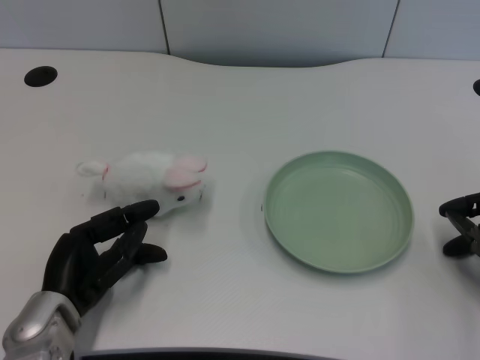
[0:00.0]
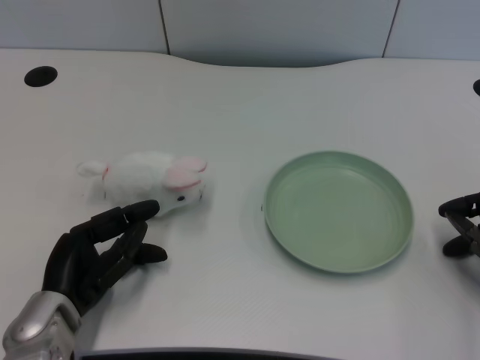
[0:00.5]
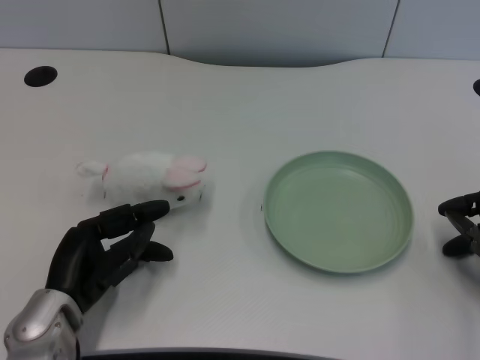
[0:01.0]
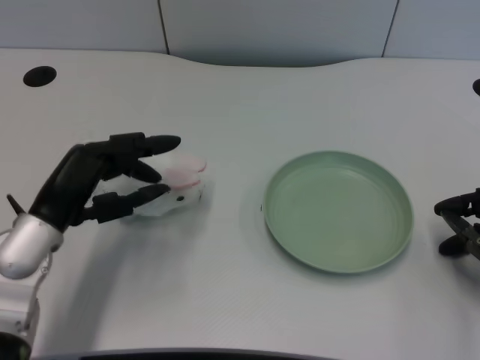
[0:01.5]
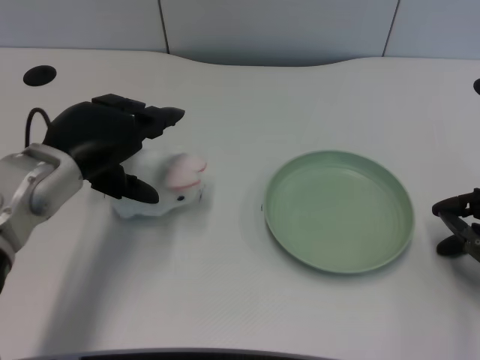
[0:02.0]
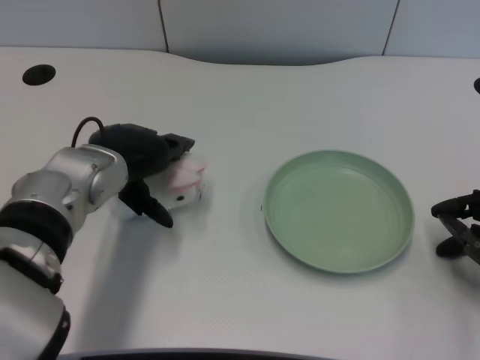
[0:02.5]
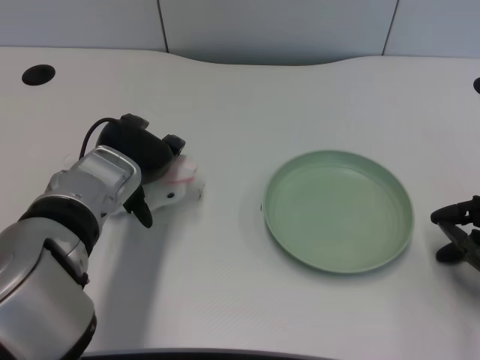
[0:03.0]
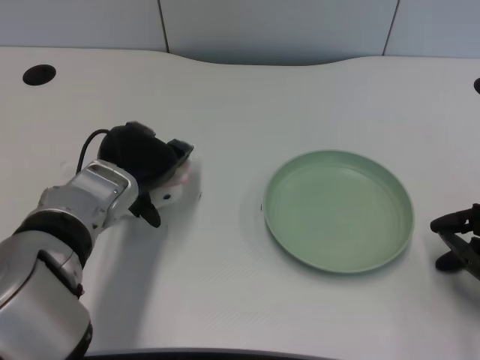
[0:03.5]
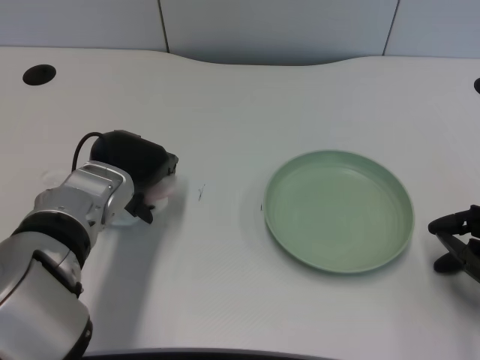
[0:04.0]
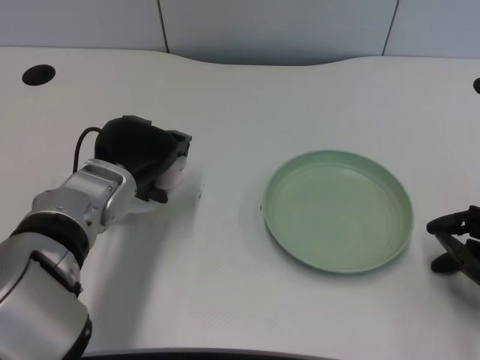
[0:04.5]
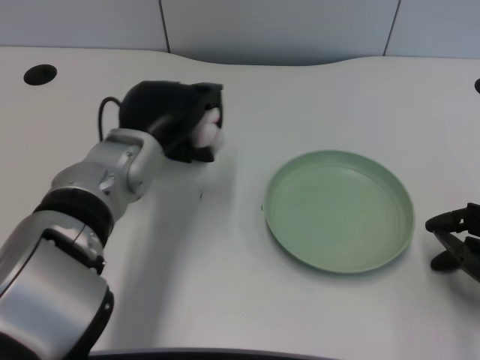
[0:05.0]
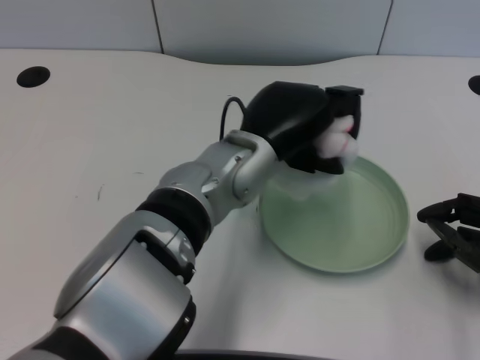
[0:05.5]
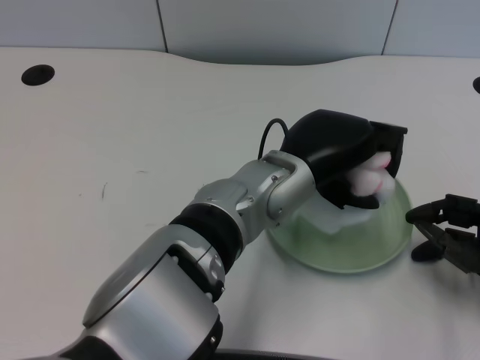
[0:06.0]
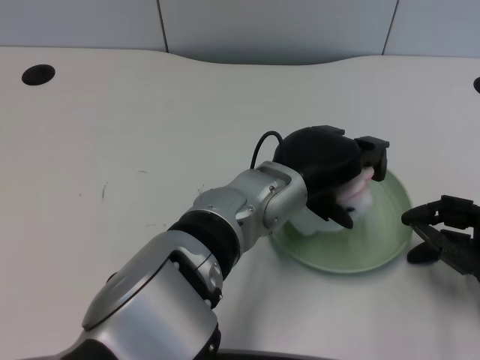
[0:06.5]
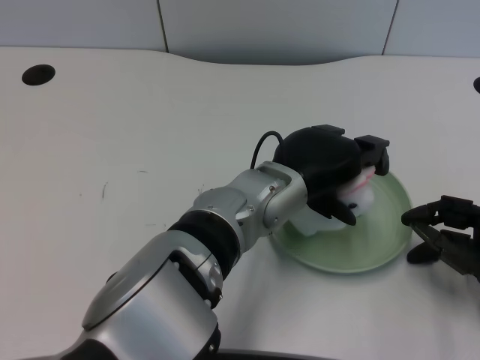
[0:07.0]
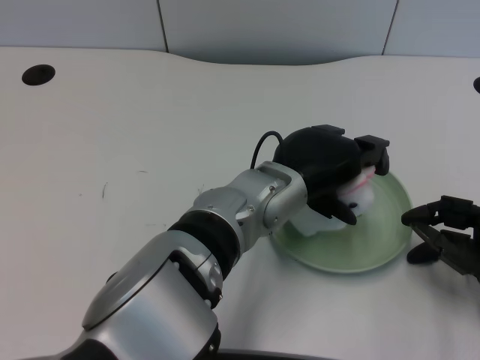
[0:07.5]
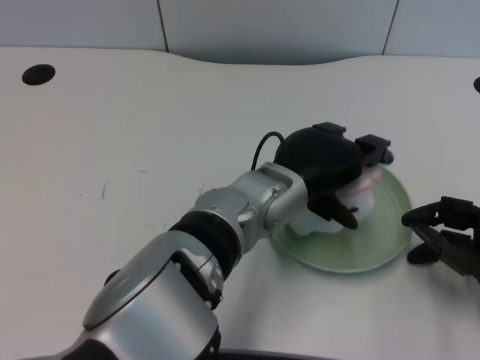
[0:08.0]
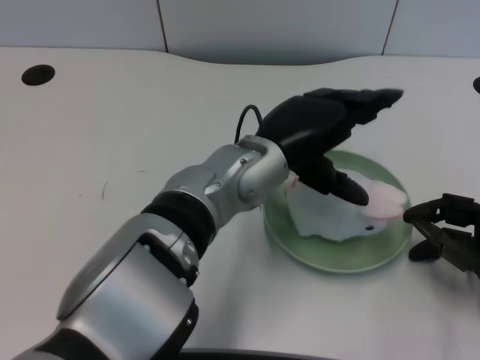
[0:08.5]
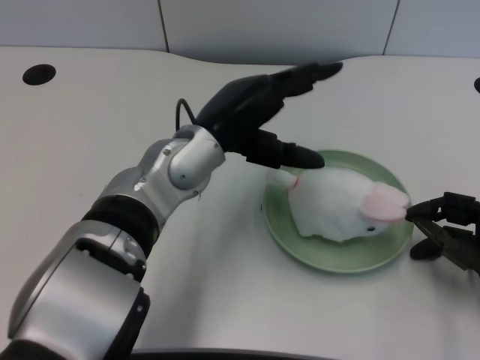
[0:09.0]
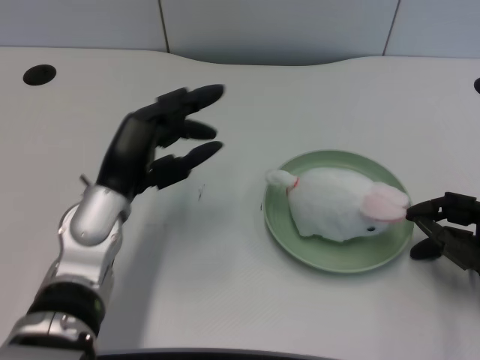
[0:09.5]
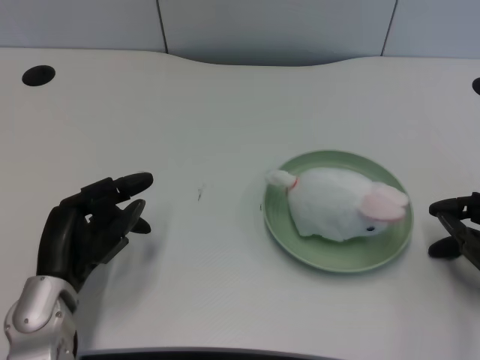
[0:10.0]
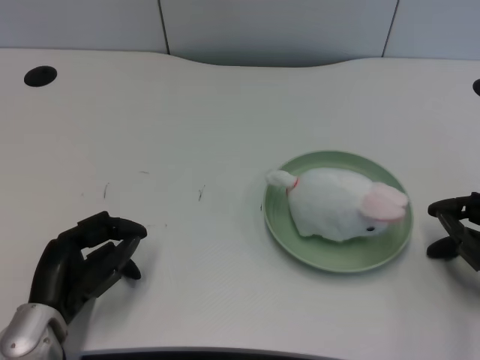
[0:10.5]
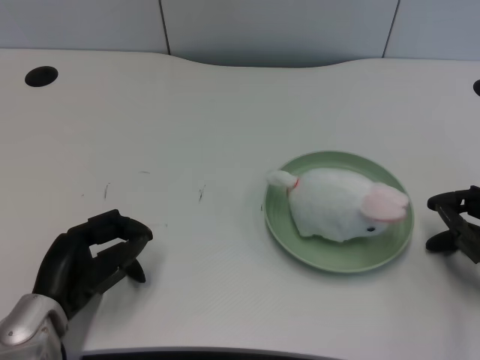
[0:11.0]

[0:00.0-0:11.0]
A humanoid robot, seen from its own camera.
Task of the whole recording: pick up the rabbit doll from the table and place it on the plate.
Step, 0:01.0 to 0:04.5: Grasp the rabbit doll with the left gripper.
Step, 0:05.0 to 0:08.0: Place the rabbit doll into the plate with the left gripper.
0:02.0 to 0:03.5: The left hand ends up approximately 5 cm from where it was.
0:03.5 to 0:05.5: The left hand goes about 15 cm to the right.
0:07.5 to 0:09.0: The left hand shifts roughly 10 cm to the left.
0:09.0 to 0:11.0: The left hand goes roughly 25 cm to the left, downward and backward.

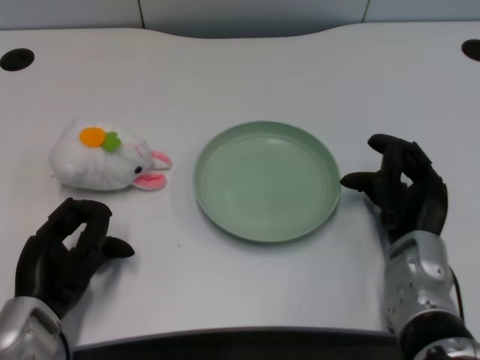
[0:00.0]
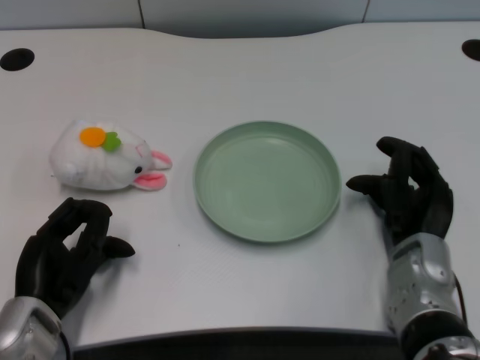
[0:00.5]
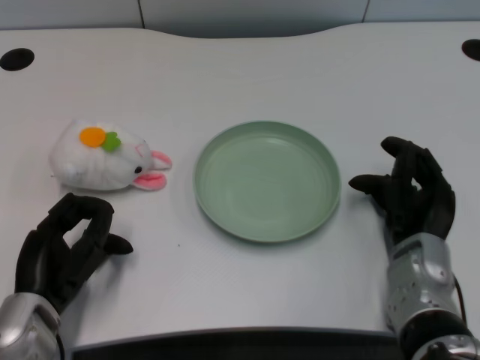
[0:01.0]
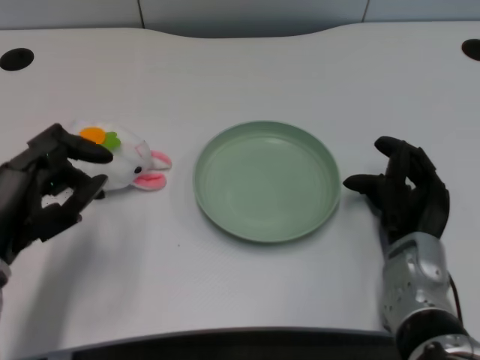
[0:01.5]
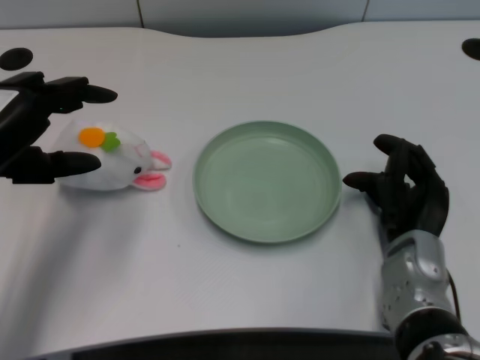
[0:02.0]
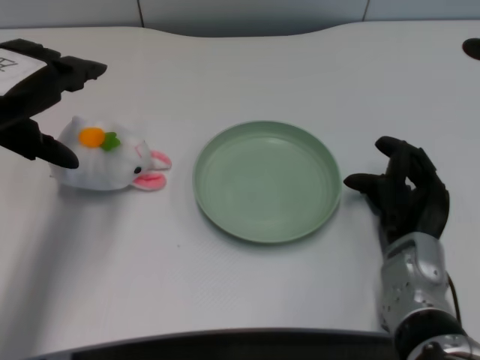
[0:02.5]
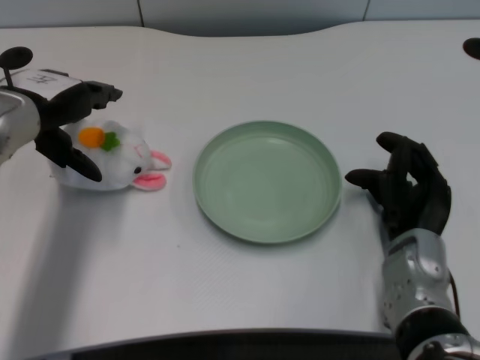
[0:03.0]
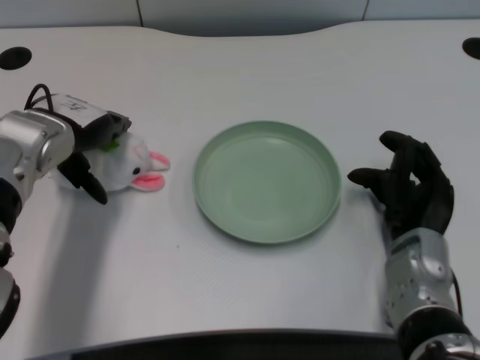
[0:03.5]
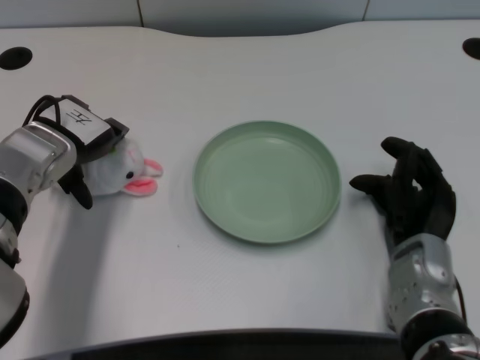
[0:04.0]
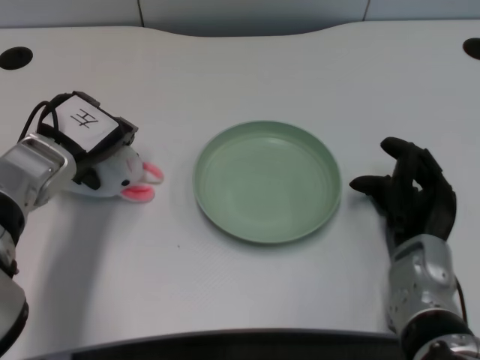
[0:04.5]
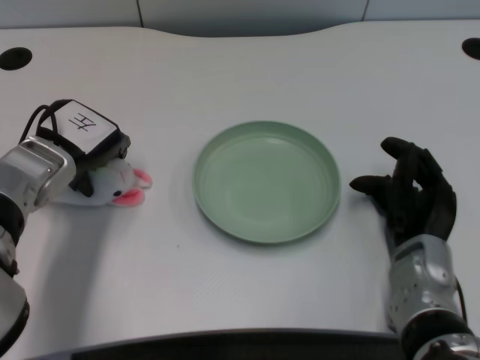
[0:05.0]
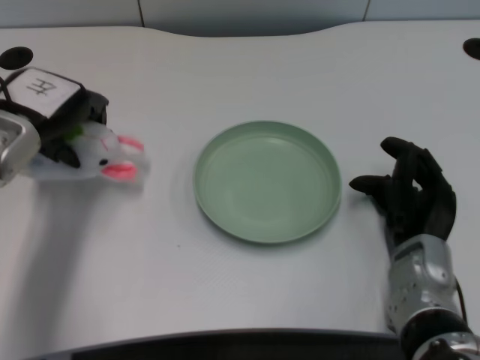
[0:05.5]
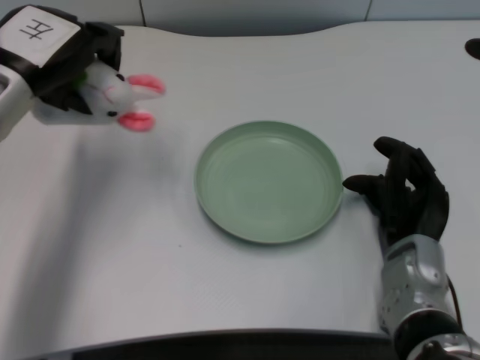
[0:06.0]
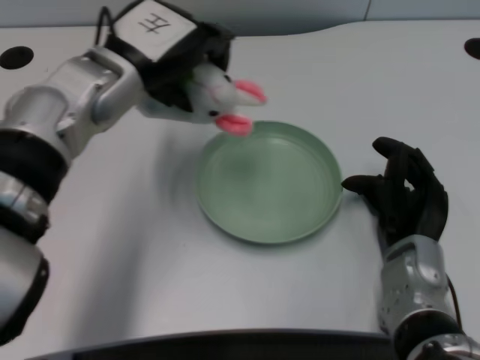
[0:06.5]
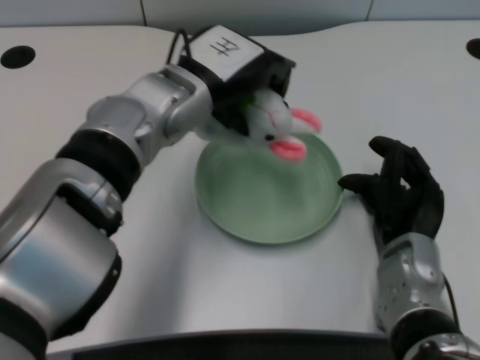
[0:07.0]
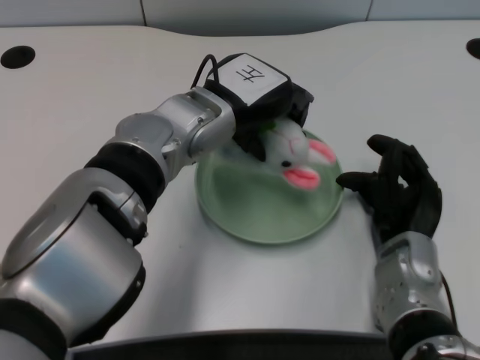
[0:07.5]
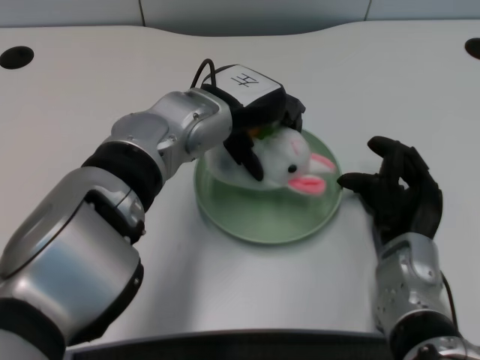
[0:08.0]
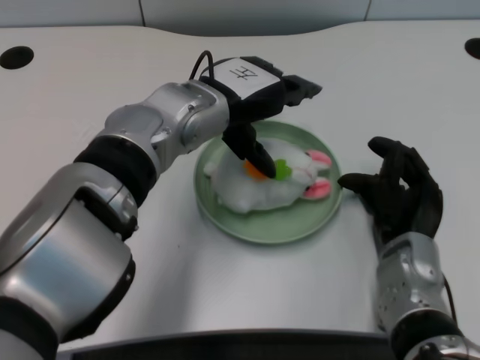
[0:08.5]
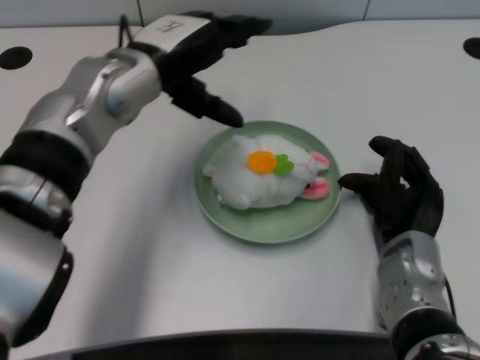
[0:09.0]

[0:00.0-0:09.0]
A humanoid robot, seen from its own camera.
Task of the whole recording: pick up the rabbit doll from the table and place it on the plate.
Step, 0:01.5 to 0:05.0: Grasp the rabbit doll with the left gripper.
Step, 0:05.5 to 0:08.0: Place the rabbit doll into the plate with the left gripper.
0:02.0 to 0:04.5: The left hand heads forward and downward, covering about 10 cm.
0:04.5 to 0:07.0: The left hand heads to the right and upward, covering some 15 cm.
0:07.0 to 0:09.0: The left hand moves some 5 cm.

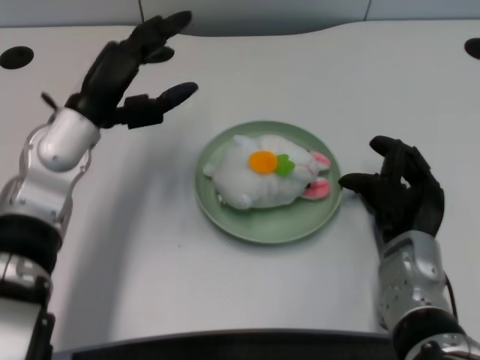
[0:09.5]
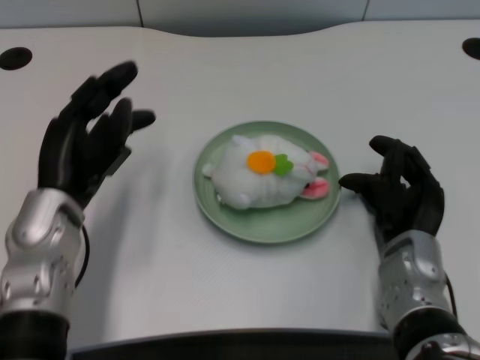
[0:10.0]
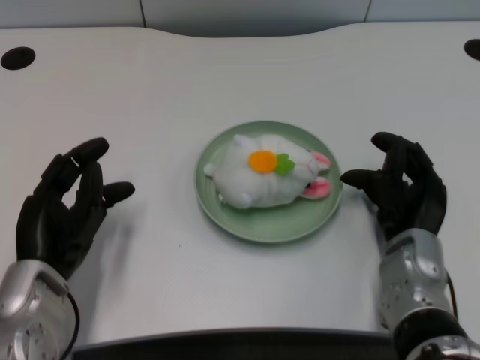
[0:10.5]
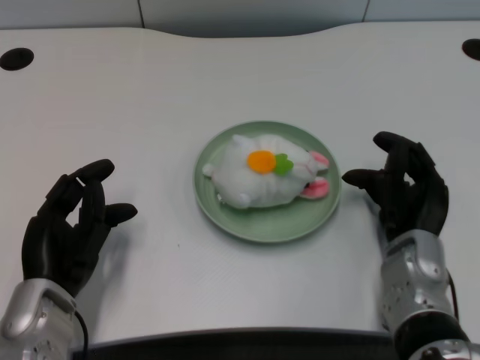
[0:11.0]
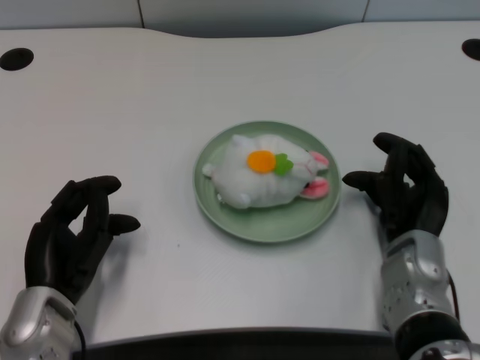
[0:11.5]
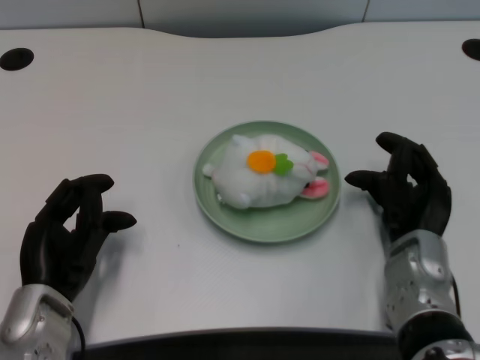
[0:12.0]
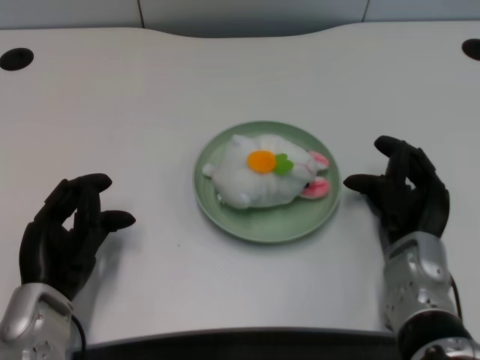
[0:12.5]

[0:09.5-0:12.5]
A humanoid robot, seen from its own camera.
Task of the whole recording: pick up the rabbit doll from the table and place it on the plate.
0:09.5 to 0:11.0: The left hand shifts some 15 cm backward and downward.
0:11.0 to 0:12.5: The hands make only small movements.

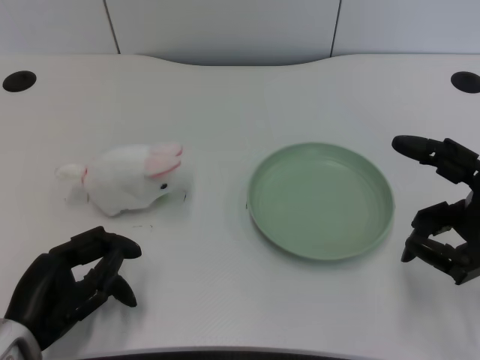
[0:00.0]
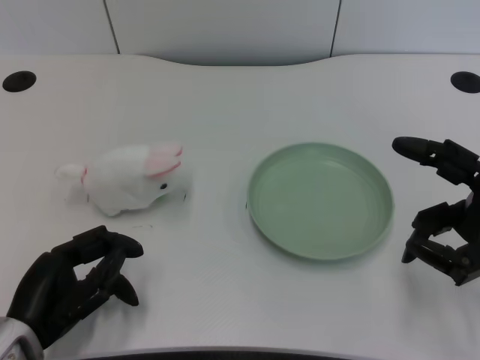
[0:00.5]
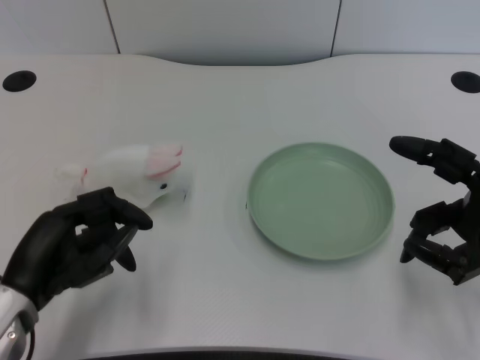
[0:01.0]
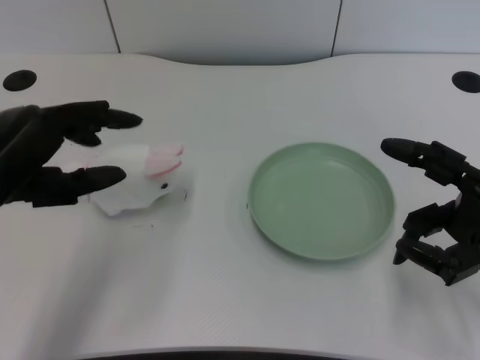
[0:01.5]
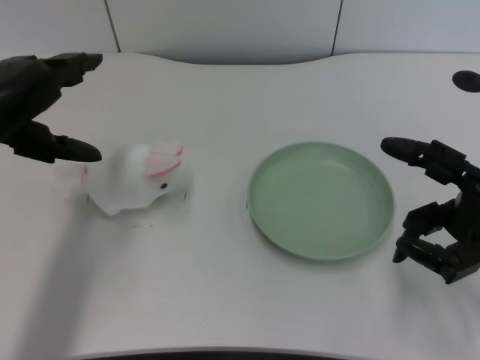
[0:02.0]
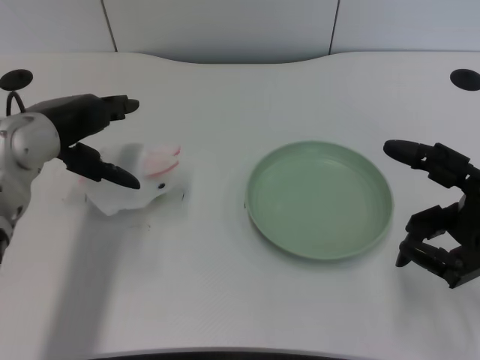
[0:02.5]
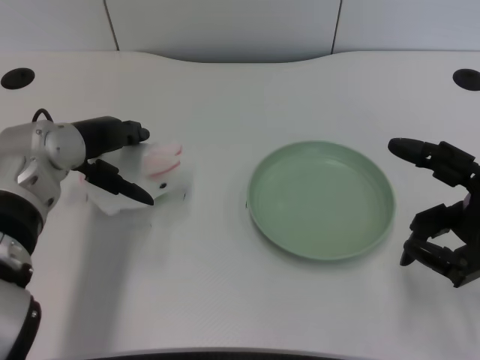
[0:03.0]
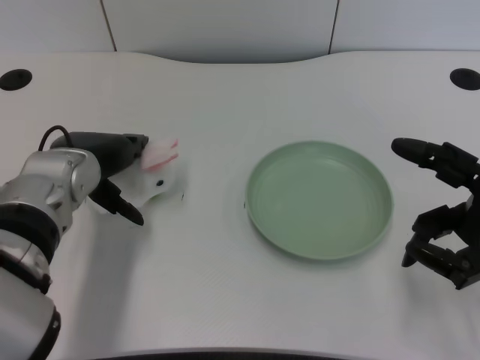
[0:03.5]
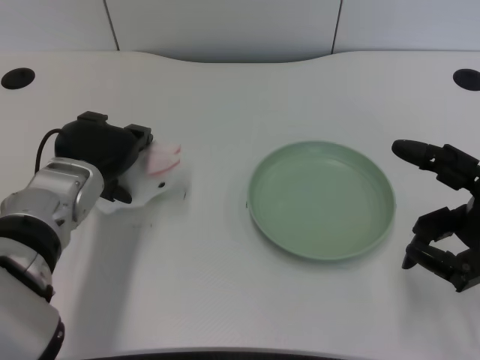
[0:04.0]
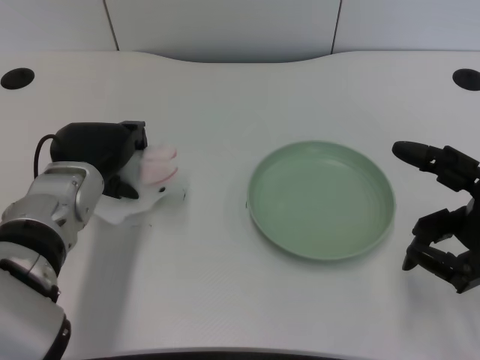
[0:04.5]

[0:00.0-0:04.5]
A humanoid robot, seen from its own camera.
Task of the whole recording: pick up the rabbit doll from the table and place it on the plate.
0:02.0 to 0:04.5: The left hand shifts about 15 cm downward and to the right.
